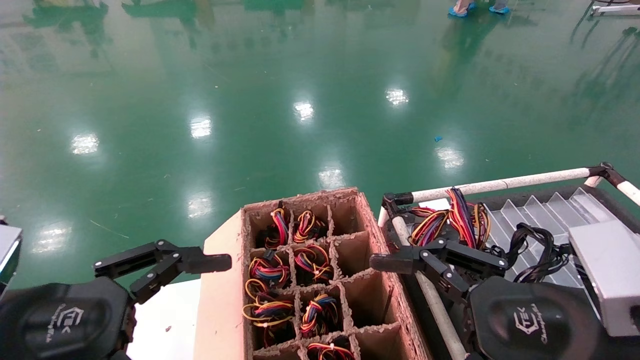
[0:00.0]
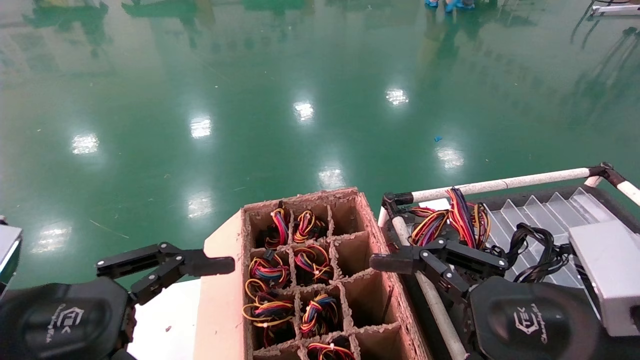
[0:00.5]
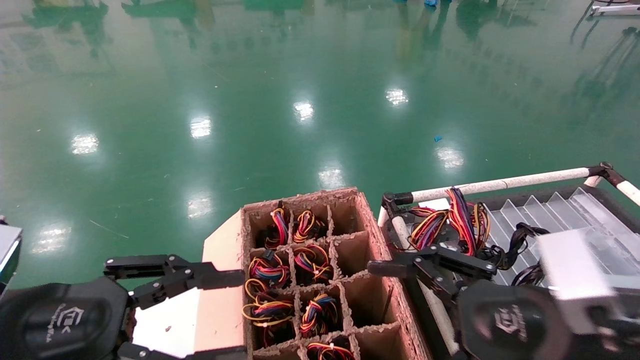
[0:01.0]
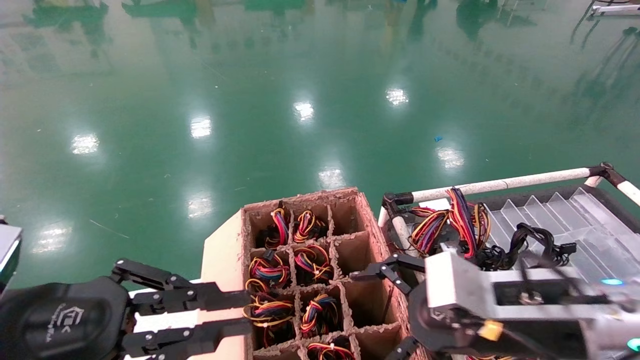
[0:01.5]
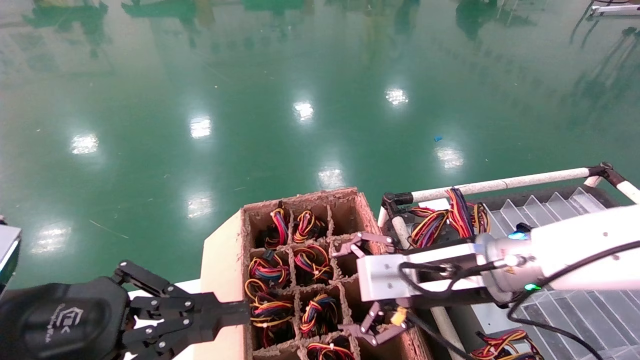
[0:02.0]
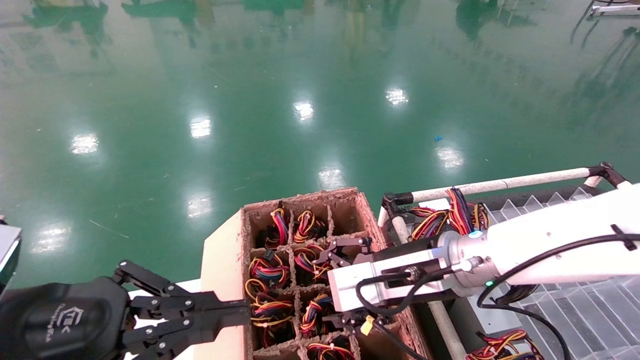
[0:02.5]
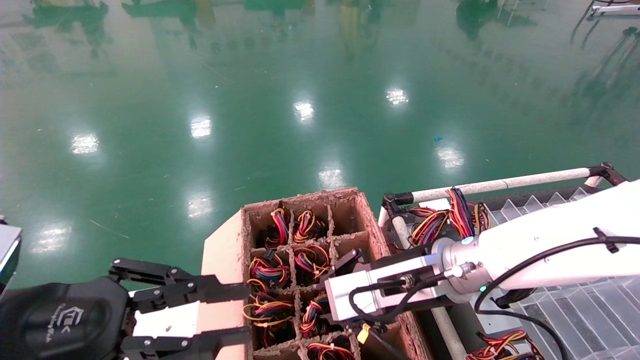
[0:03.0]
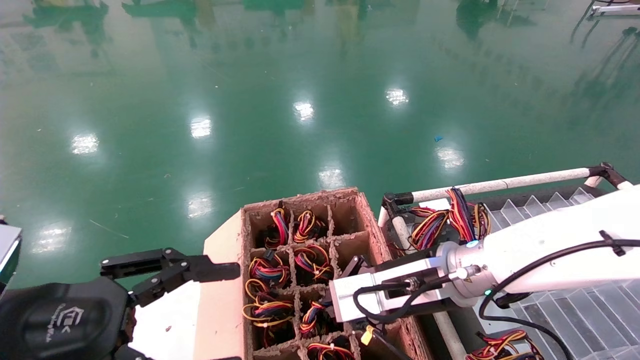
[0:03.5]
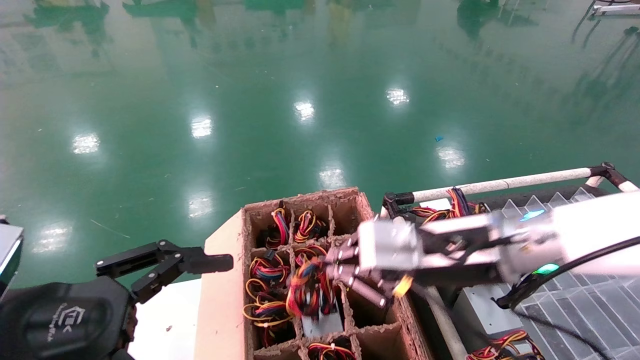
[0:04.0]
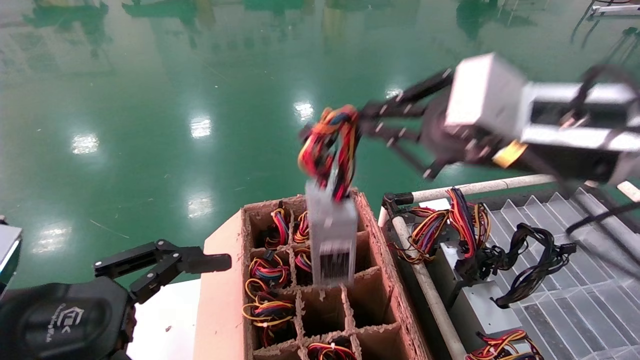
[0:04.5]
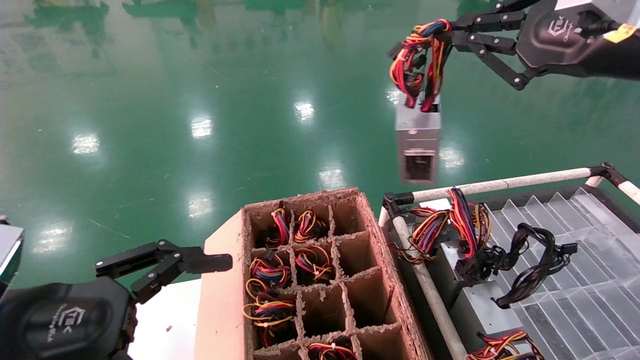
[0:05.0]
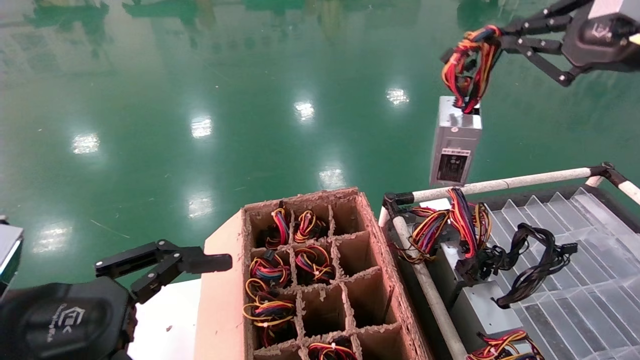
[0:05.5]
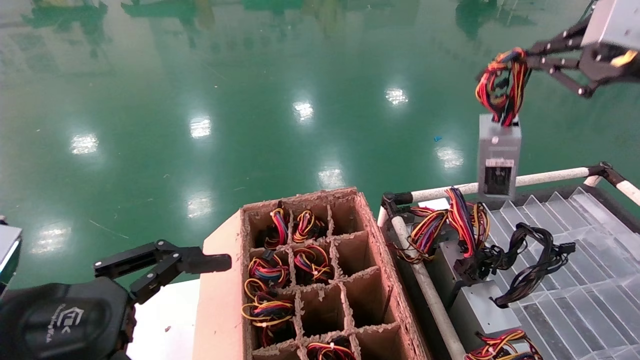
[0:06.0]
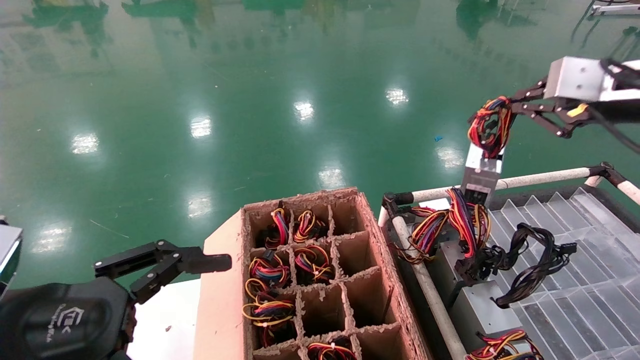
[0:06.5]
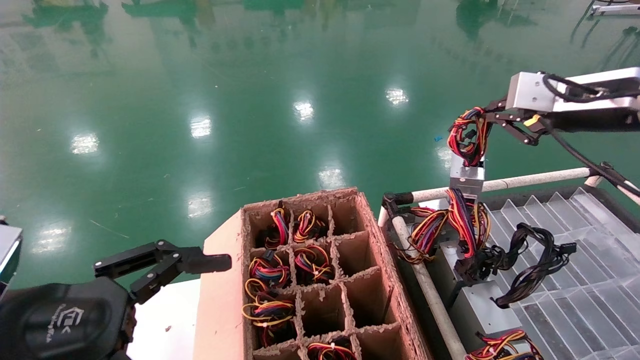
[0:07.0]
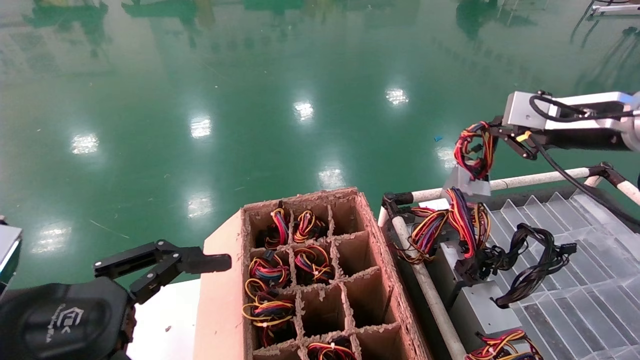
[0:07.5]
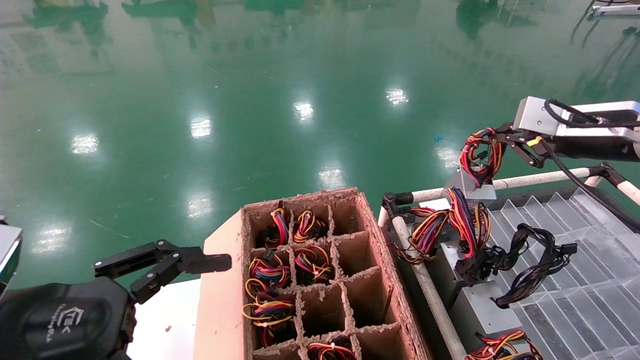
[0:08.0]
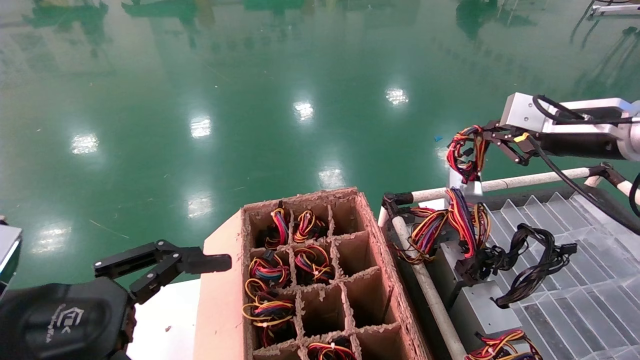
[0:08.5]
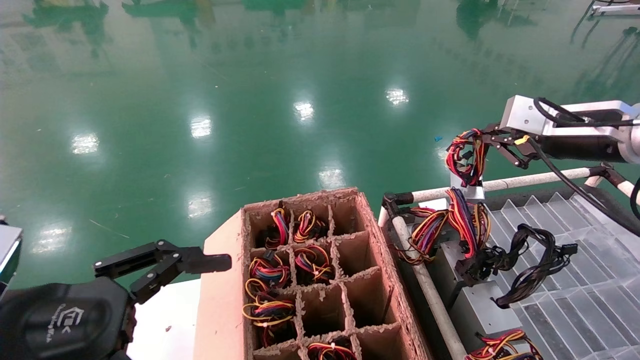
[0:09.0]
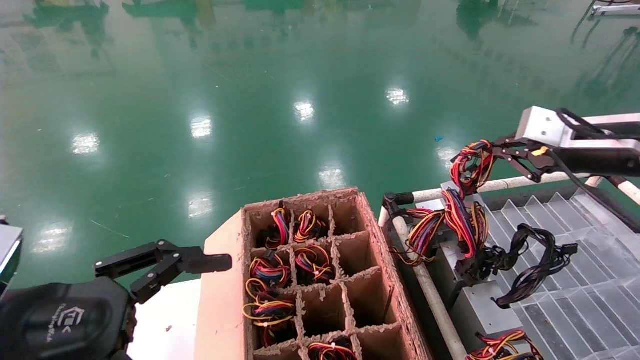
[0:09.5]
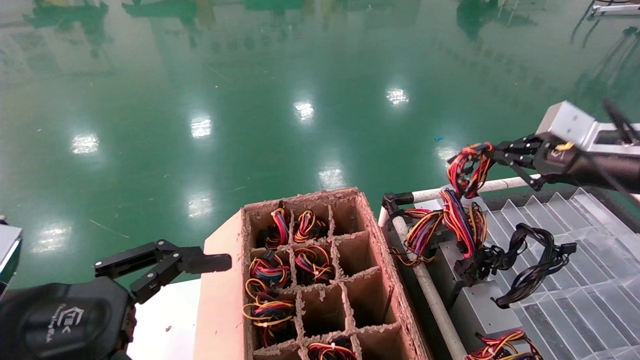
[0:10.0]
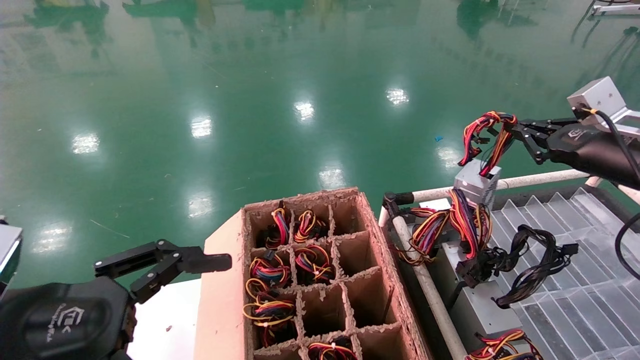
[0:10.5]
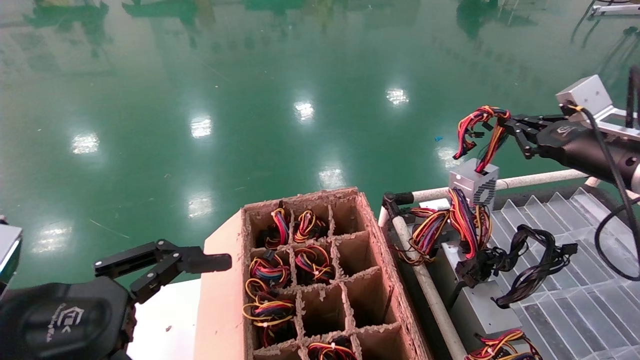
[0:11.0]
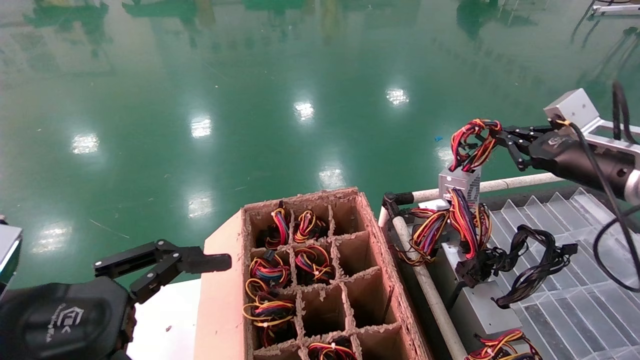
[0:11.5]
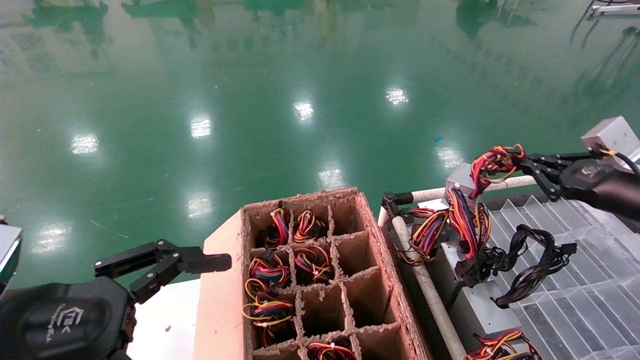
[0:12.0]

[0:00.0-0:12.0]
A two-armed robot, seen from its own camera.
Step, 0:01.0 to 0:03.5: Grab and lift the power supply from the large box.
0:00.0 to 0:02.0: The left gripper closes up. The right gripper heads forward and to the left, covering some 15 cm.
0:02.0 to 0:04.0: The right gripper closes up. The left gripper opens up.
0:04.0 to 0:06.0: The right gripper is displaced to the right and upward by about 30 cm.
0:06.0 to 0:08.0: The right gripper travels downward and forward by about 10 cm.
0:10.0 to 0:12.0: The right gripper travels downward by approximately 5 cm.

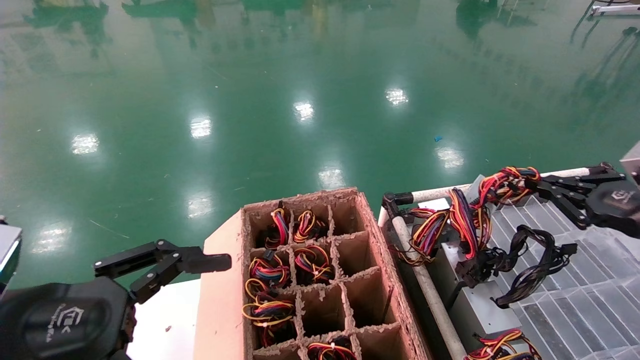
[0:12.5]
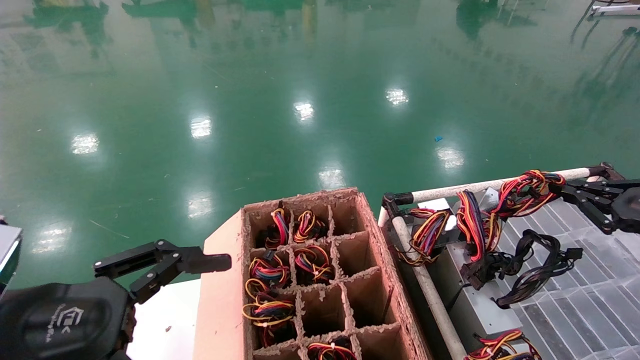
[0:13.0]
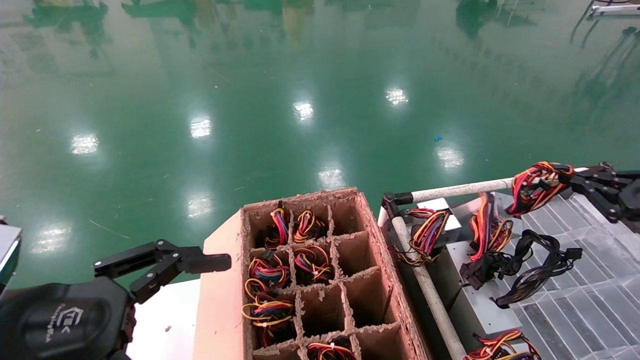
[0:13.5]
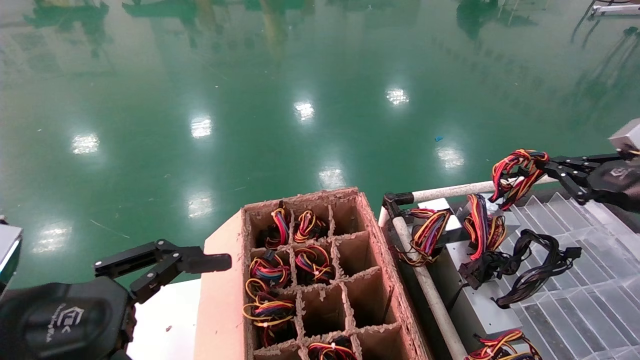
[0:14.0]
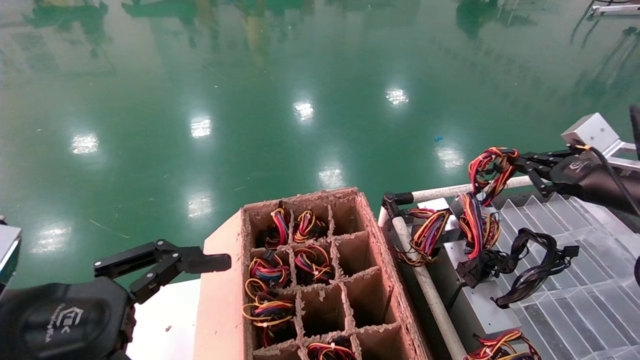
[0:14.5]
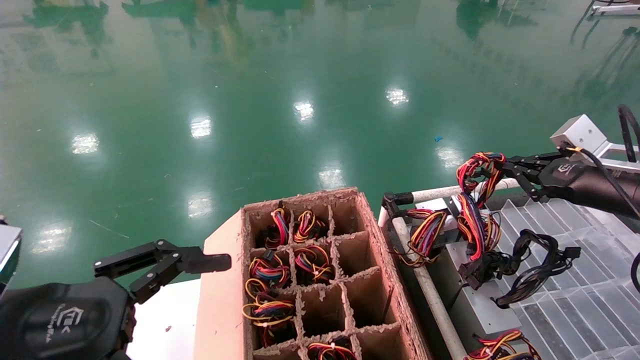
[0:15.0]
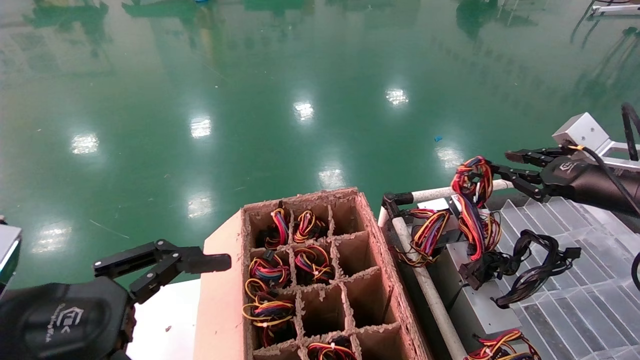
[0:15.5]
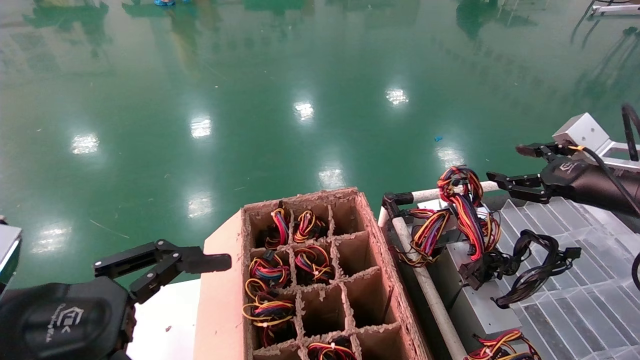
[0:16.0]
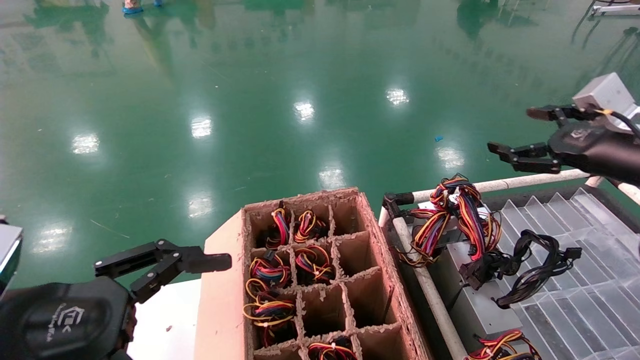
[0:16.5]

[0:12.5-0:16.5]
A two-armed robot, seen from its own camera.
Step, 0:12.5 to 0:15.0: Place the power supply on the operating table.
0:12.5 to 0:14.5: The right gripper is displaced forward by about 5 cm.
0:14.5 to 0:16.5: The right gripper opens.
